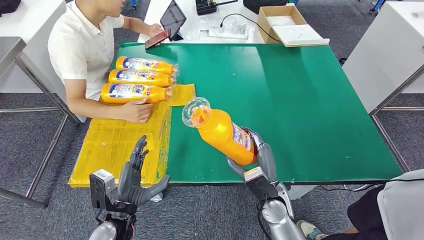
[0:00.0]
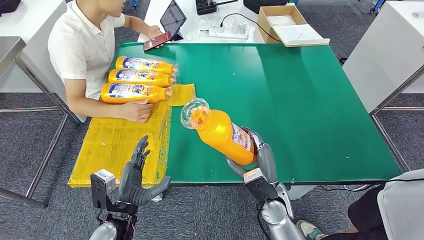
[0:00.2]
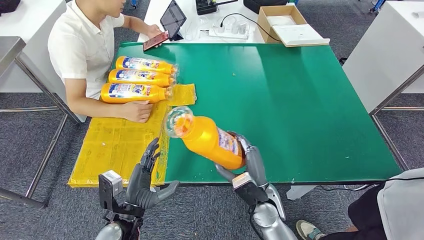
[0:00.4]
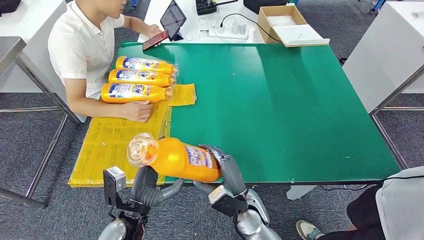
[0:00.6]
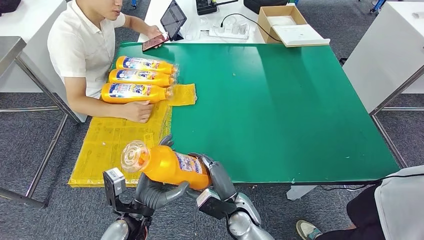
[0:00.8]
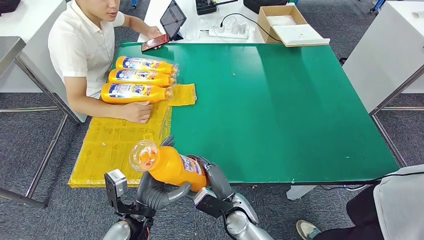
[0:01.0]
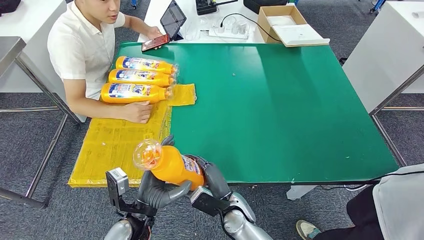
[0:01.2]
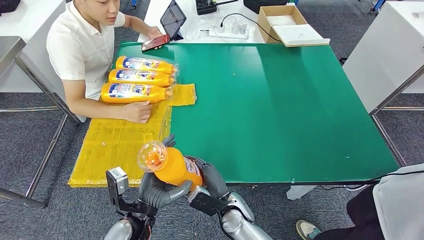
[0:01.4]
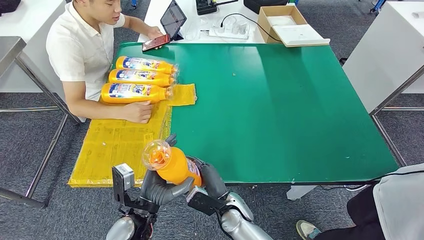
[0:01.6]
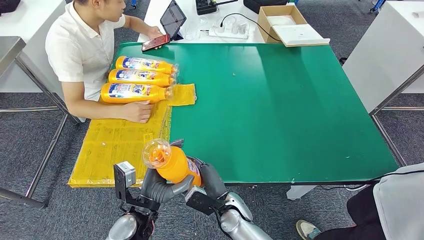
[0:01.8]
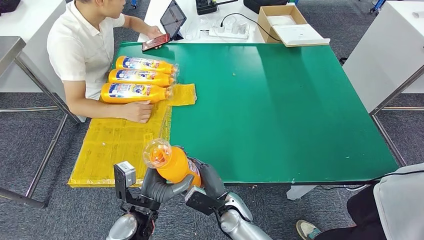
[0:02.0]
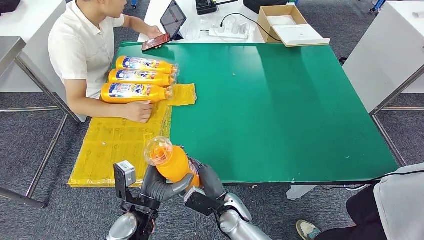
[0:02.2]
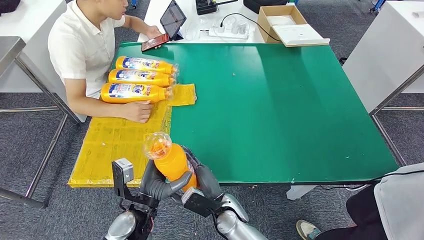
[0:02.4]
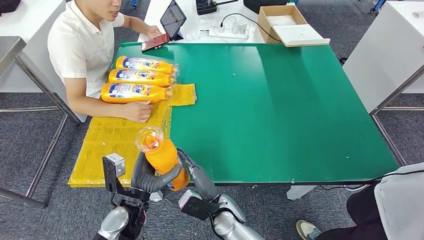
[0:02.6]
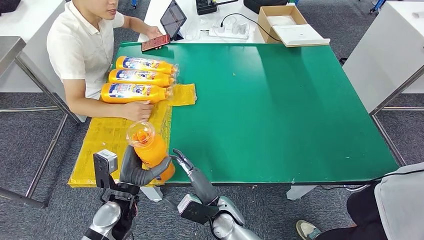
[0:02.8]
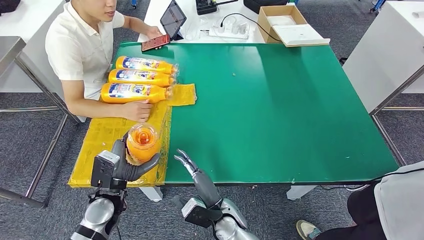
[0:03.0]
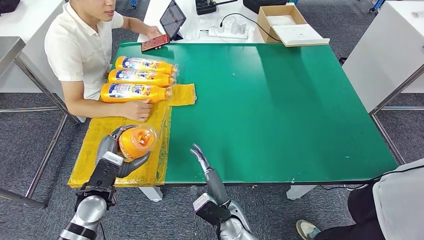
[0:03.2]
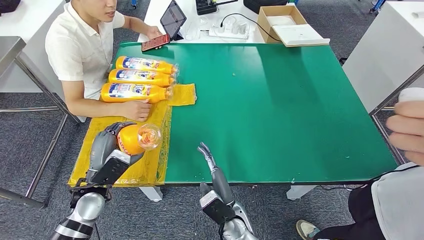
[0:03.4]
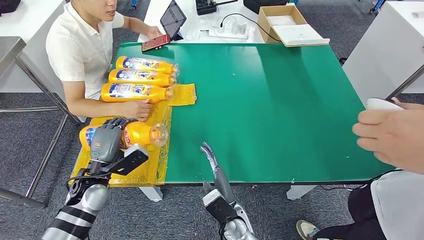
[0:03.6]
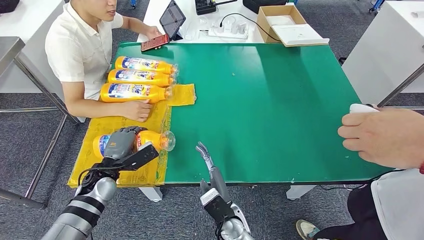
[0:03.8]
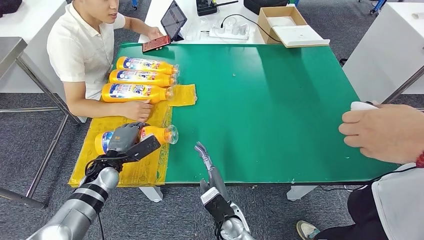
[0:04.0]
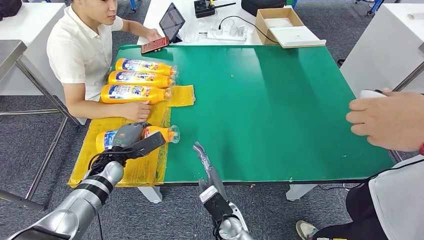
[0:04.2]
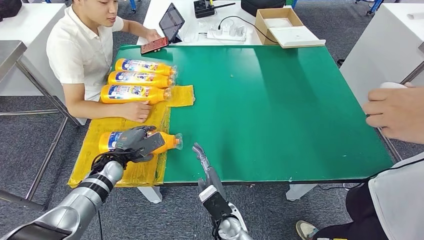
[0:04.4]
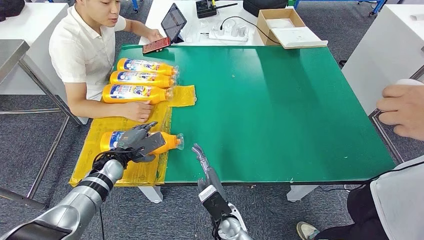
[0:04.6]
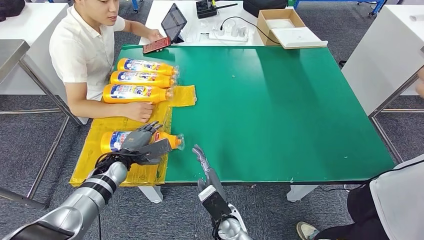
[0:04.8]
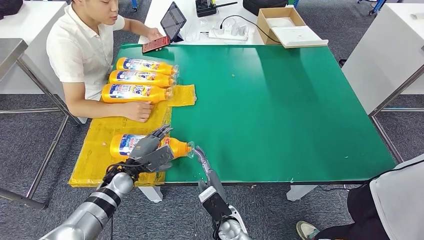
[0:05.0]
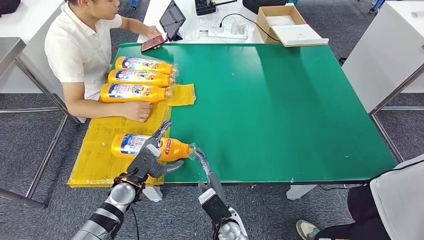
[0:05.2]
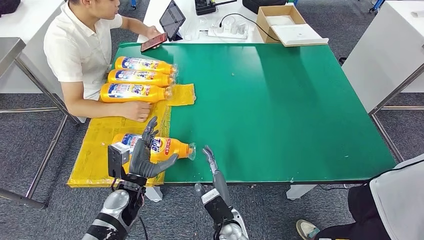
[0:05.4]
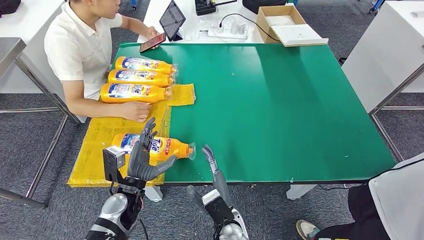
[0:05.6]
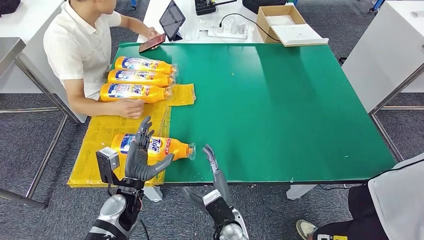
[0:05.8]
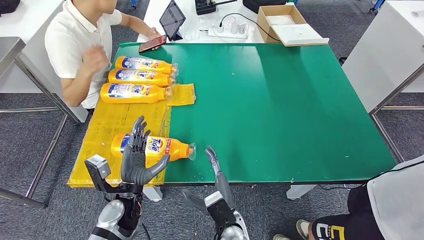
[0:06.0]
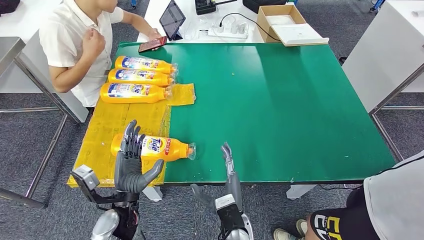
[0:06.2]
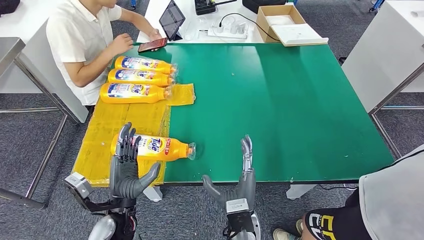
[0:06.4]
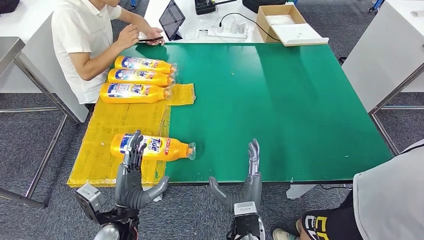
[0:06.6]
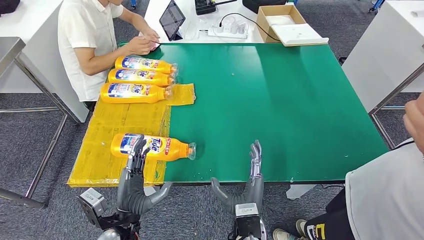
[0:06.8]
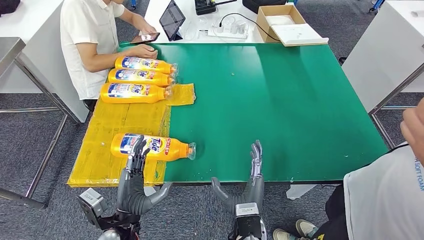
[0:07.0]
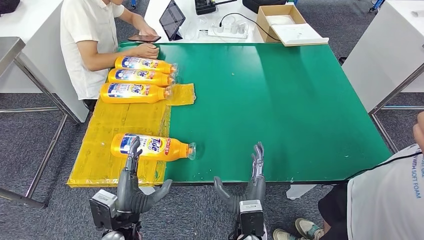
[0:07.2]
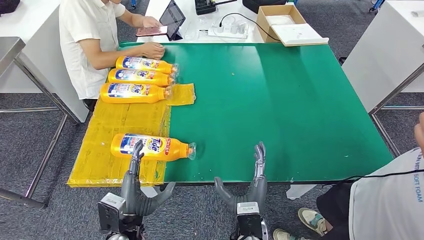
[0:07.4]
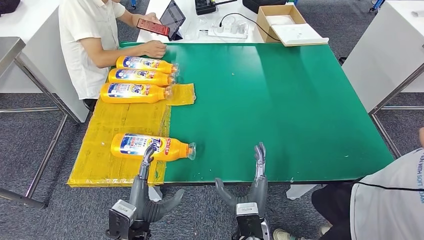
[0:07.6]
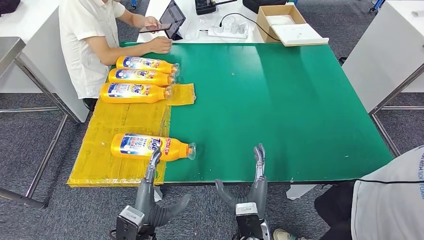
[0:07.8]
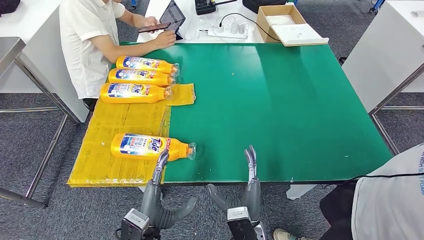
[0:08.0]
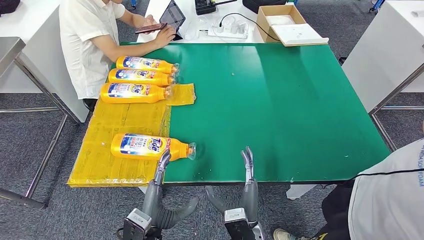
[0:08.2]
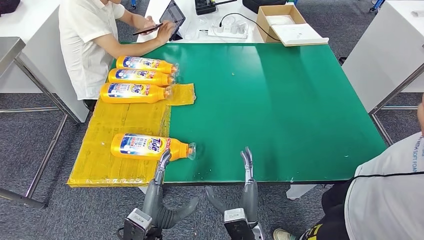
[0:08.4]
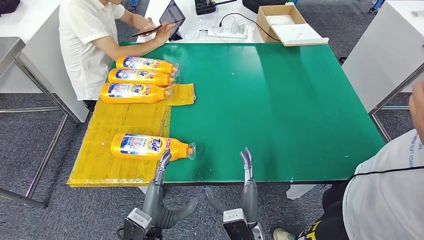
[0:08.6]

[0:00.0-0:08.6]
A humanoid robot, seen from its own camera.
Step, 0:00.0 to 0:08.6: Flip the fast-moving consumer goods bottle to the front side.
0:00.0 to 0:01.4: The right hand is displaced to the left by about 10 cm. The left hand travels to the right by about 5 cm.
0:01.4 to 0:02.8: The left hand ends up approximately 5 cm from where it was.
0:05.8 to 0:07.2: The right hand moves approximately 5 cm; the left hand shifts some 10 cm backward.
0:07.2 to 0:08.6: The left hand travels to the right by approximately 5 cm.
